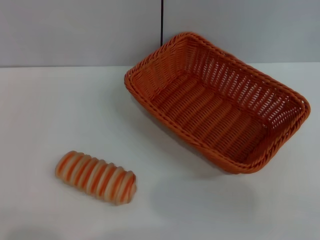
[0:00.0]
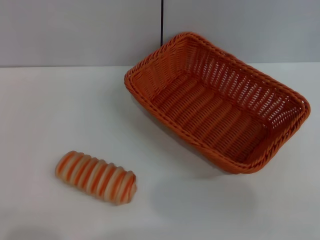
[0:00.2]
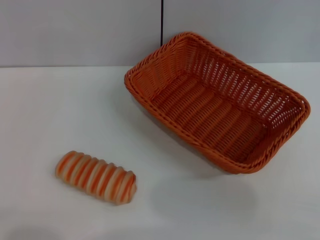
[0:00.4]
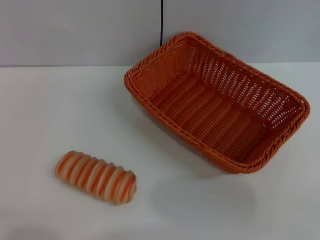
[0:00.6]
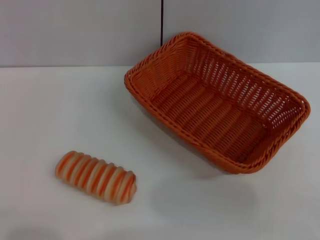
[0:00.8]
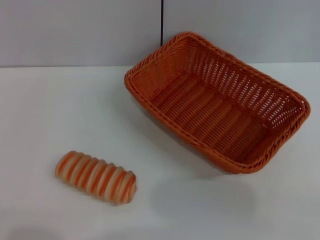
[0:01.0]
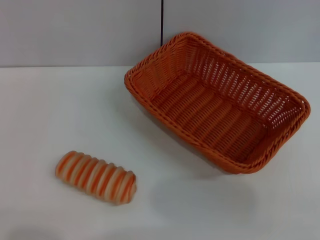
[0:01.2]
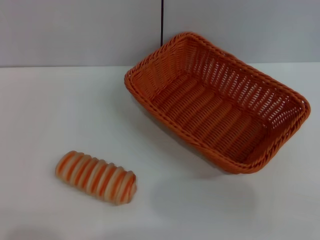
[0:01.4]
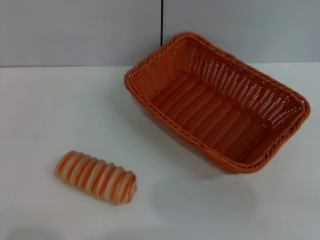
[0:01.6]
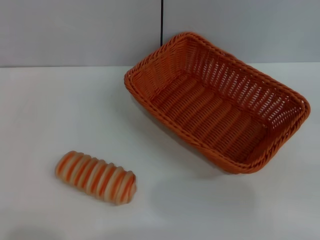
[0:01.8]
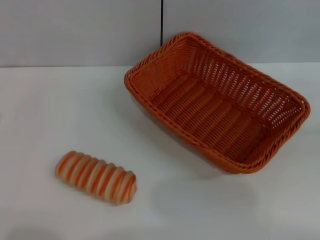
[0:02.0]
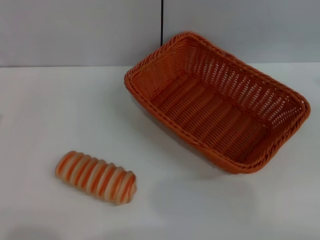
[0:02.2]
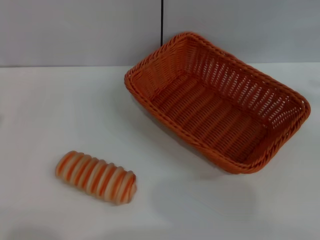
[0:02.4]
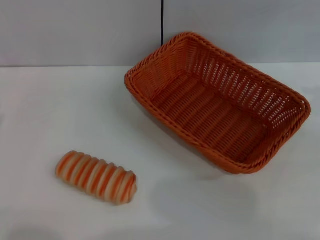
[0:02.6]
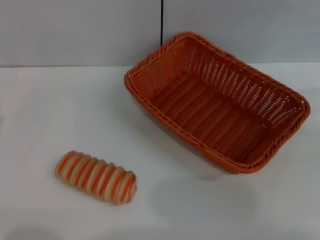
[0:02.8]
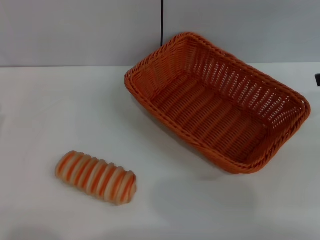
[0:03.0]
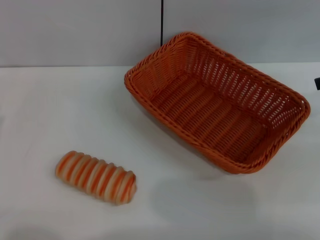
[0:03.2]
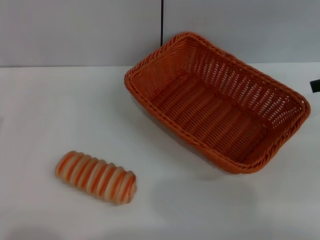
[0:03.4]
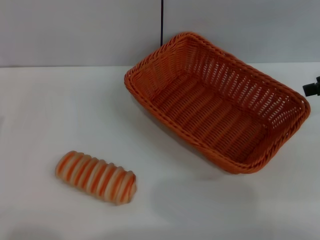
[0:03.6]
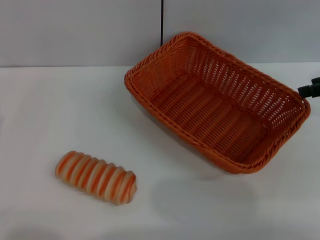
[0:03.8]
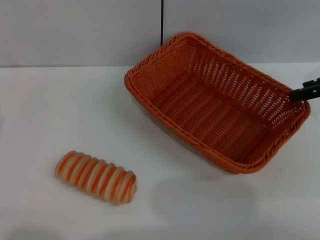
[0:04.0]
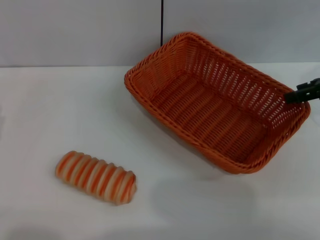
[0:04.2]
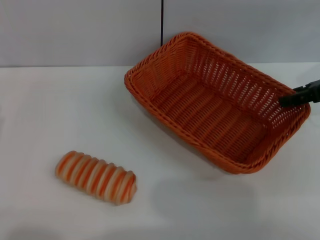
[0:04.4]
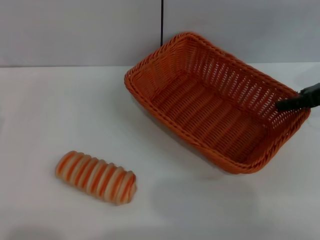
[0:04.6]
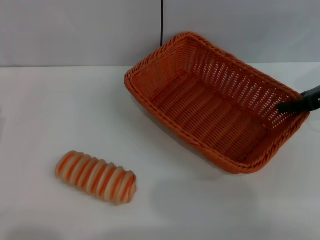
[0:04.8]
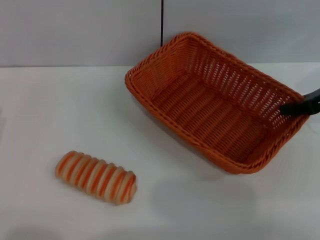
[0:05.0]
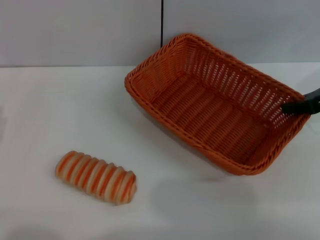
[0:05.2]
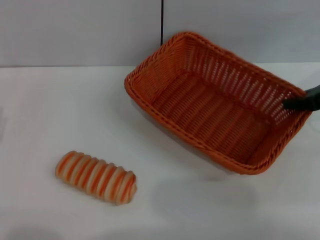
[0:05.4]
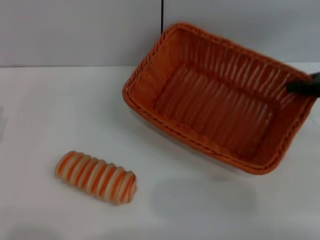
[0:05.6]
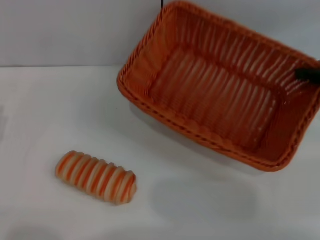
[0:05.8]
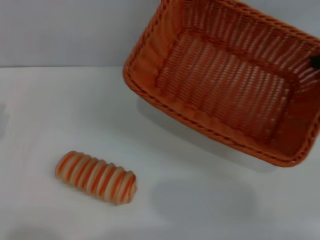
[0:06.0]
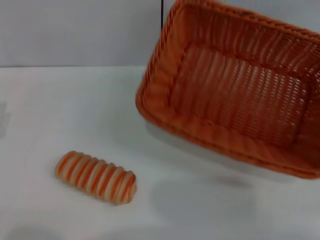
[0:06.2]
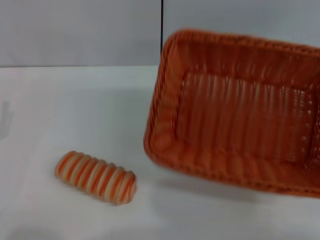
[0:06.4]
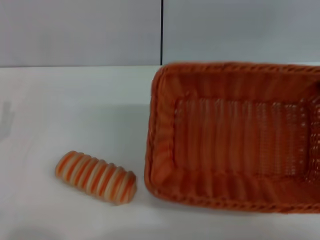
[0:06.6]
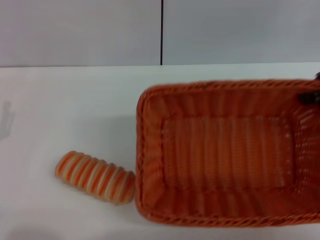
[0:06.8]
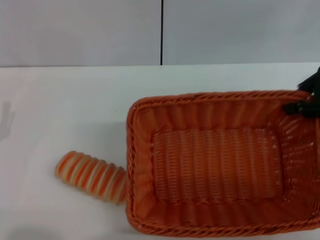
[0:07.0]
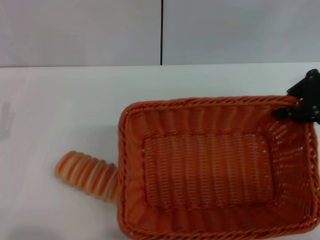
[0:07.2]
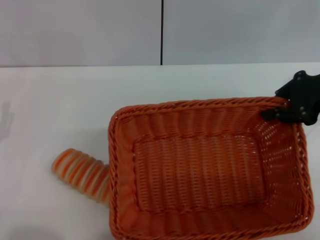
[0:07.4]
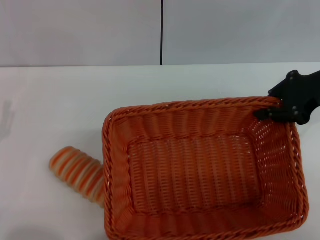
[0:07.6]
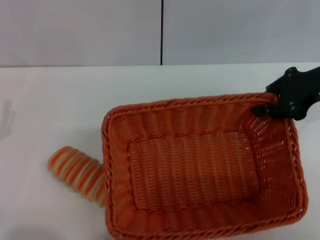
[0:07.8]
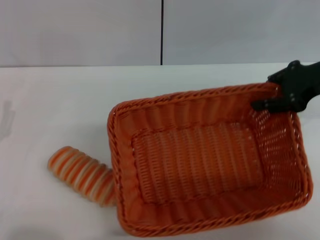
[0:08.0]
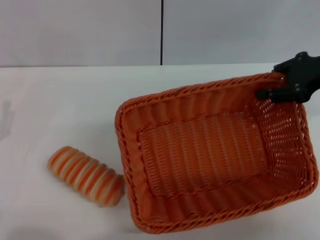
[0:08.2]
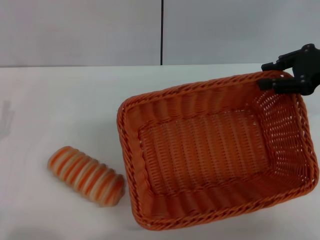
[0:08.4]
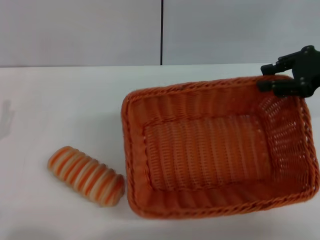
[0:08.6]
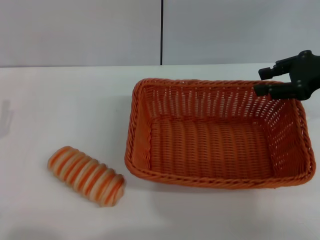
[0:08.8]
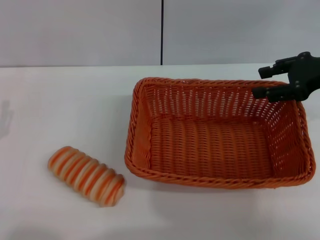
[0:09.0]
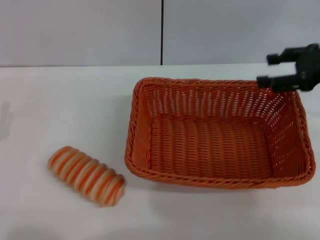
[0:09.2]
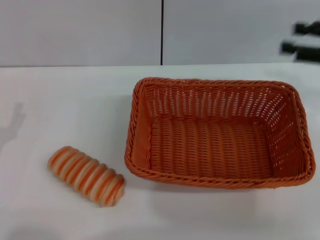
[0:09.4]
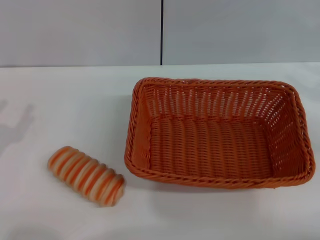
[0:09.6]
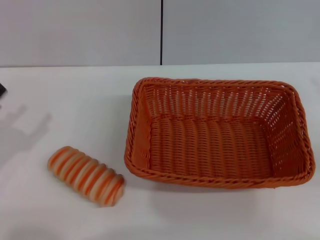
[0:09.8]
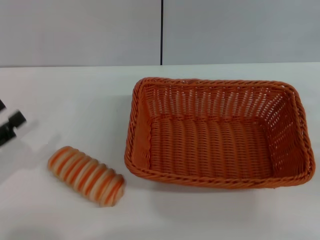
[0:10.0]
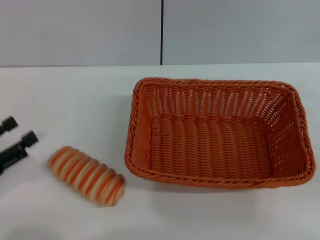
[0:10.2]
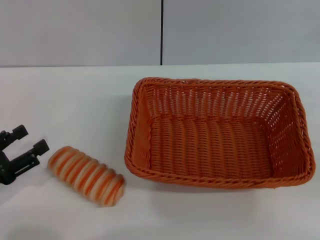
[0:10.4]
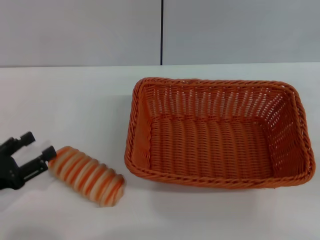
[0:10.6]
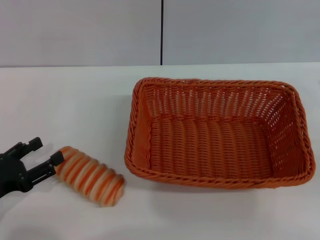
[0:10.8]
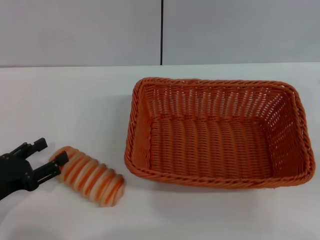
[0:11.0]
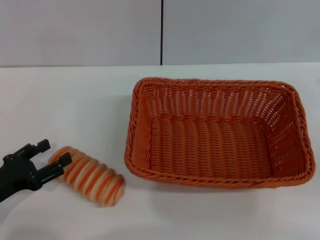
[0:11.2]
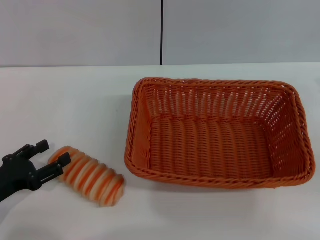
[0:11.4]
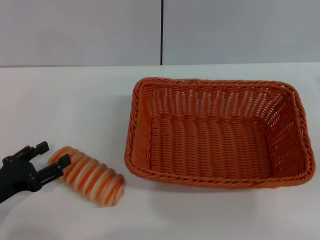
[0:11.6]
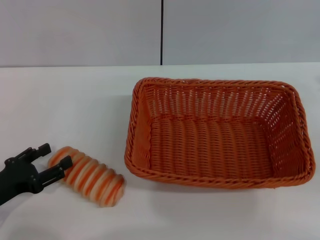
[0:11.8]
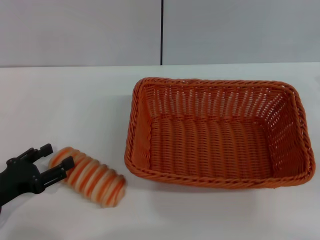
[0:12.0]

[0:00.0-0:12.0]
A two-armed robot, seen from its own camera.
Step, 0:00.0 to 0:05.6: Pick up the light basket with the right gripper.
Step, 0:05.8 to 0:08.8: Place the light basket in the center of view with the right gripper.
0:01.6 to 0:03.0: The right gripper is displaced upward, forward and to the left by roughly 25 cm.
0:03.0 to 0:04.4: The right gripper travels downward by roughly 5 cm.
0:04.4 to 0:06.0: The right gripper ends up approximately 5 cm from where it was, and closes up.
0:06.0 to 0:07.6: The right gripper travels to the left by roughly 10 cm.
0:07.6 to 0:09.0: The right gripper opens its fingers.
0:09.0 to 0:10.4: The right gripper goes approximately 15 cm backward, to the right and downward.
0:10.4 to 0:12.0: The grippers stay close to where they were, moving slightly.

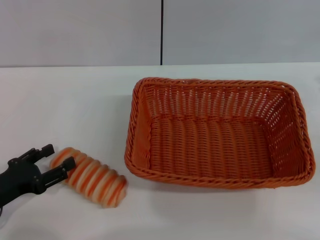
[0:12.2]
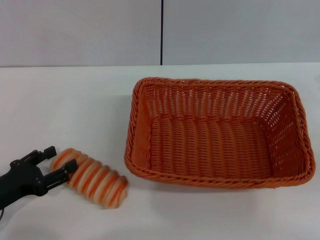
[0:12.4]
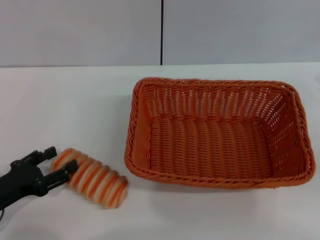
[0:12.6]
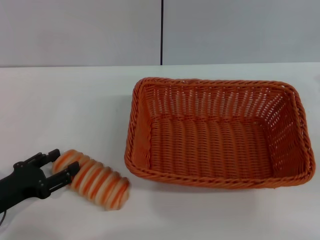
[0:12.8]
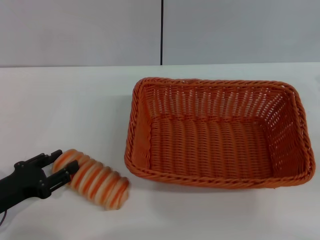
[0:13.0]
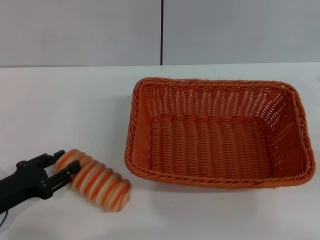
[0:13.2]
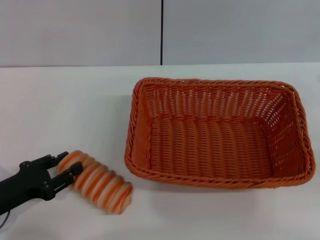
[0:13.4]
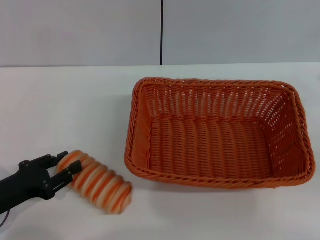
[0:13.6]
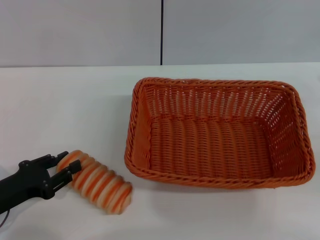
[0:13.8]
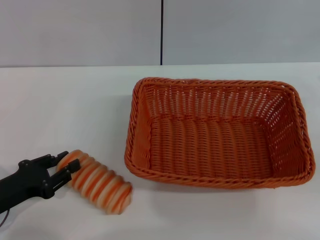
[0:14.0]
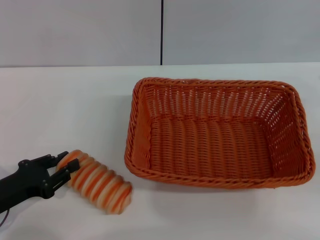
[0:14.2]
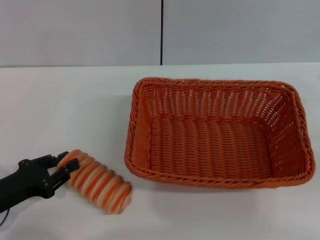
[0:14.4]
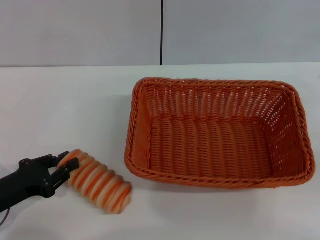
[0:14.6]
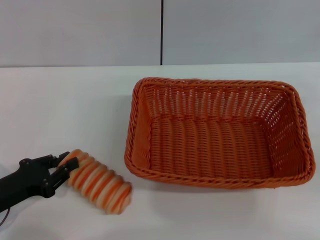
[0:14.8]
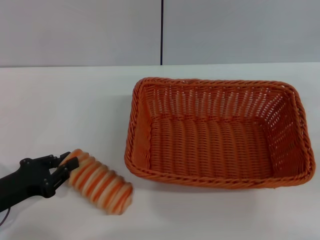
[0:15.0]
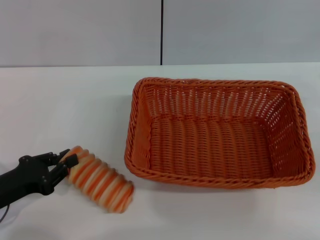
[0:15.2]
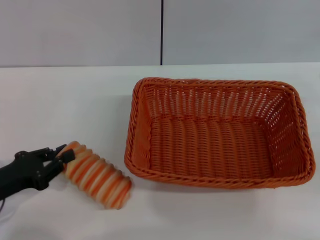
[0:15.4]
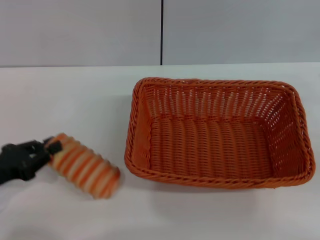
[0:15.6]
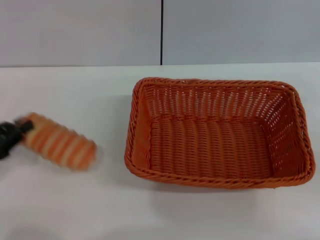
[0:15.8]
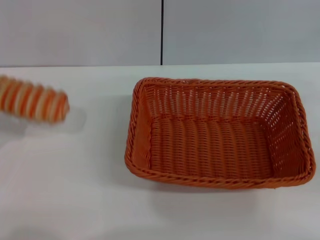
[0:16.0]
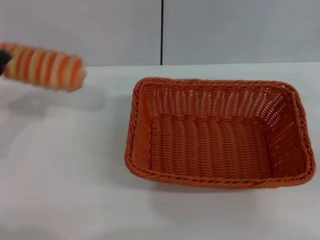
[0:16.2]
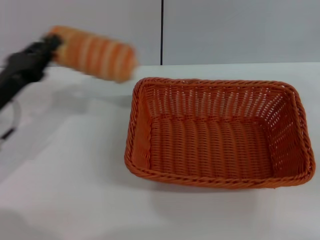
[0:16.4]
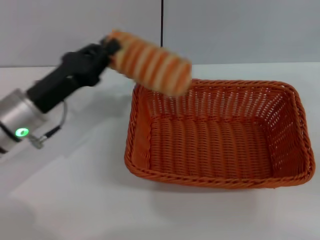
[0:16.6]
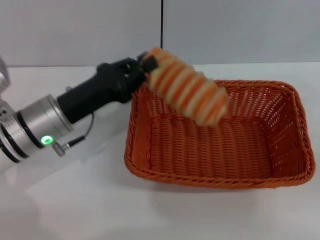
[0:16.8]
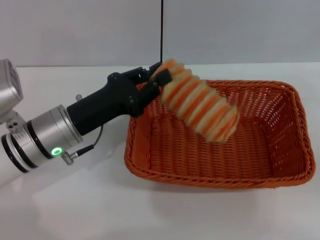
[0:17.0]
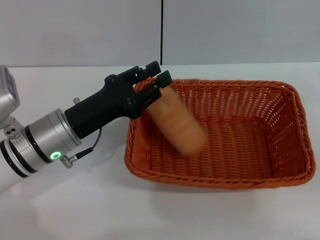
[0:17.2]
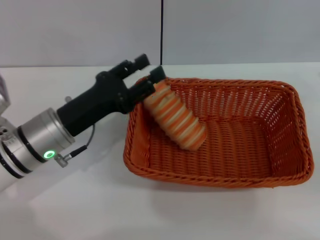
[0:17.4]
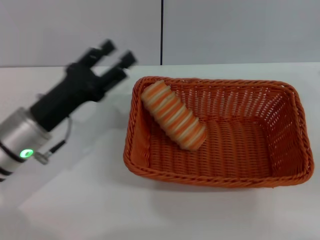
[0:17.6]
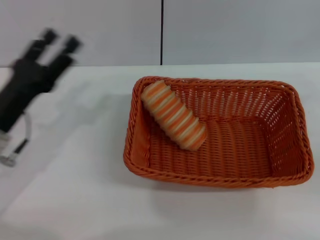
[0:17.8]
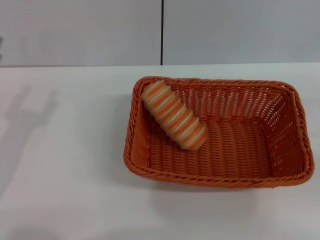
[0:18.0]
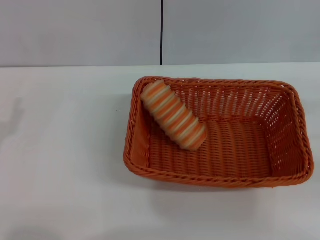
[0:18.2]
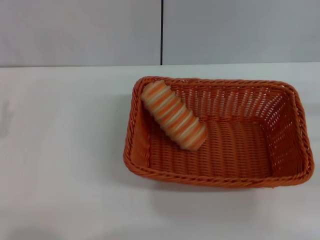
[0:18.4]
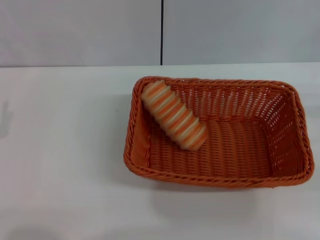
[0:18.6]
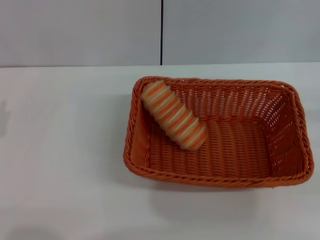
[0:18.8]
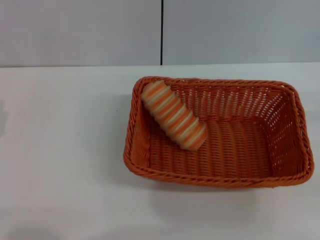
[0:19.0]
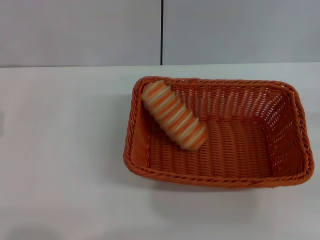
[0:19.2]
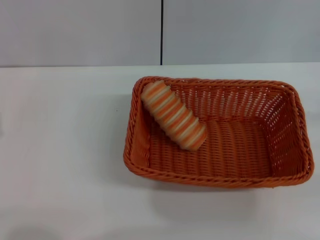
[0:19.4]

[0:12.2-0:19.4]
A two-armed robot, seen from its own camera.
Step, 0:12.2 to 0:16.0: Pick up the long bread with the left gripper.
Step, 0:16.2 to 0:17.6: Place the long bread into the light basket with the left gripper.
0:12.2 to 0:13.6: The grippers make only small movements.
0:13.6 to 0:15.0: The left gripper closes up.
0:15.0 to 0:16.6: The left gripper is displaced forward, to the right and upward by some 15 cm.
0:16.6 to 0:18.0: The left gripper moves backward and to the left, roughly 10 cm, and opens up.
